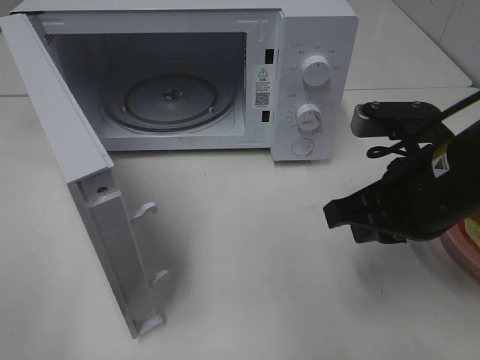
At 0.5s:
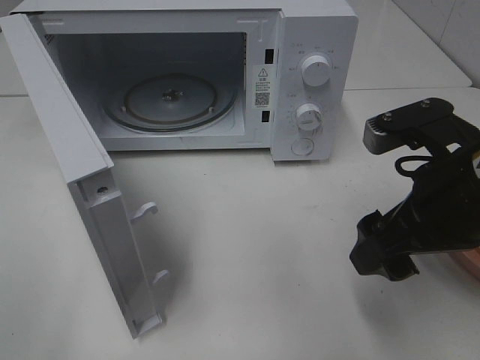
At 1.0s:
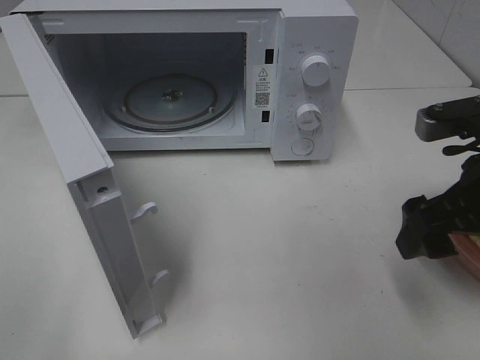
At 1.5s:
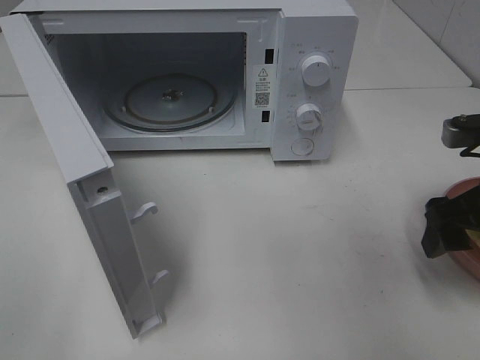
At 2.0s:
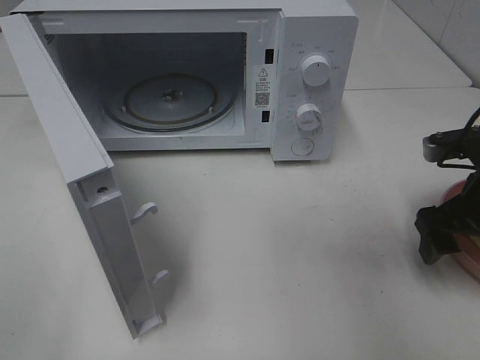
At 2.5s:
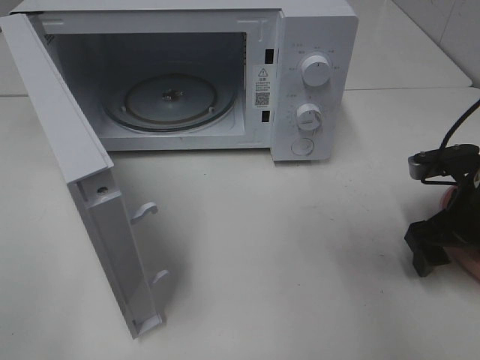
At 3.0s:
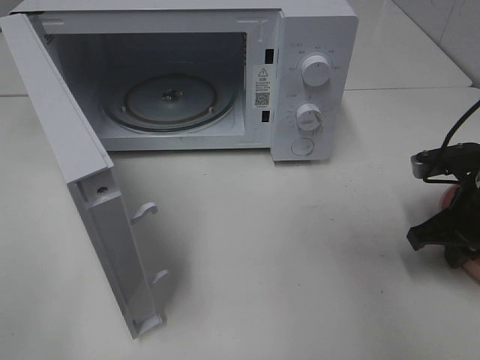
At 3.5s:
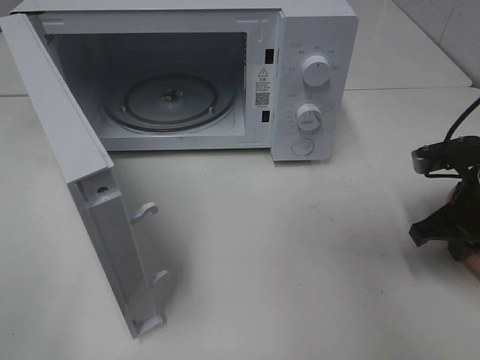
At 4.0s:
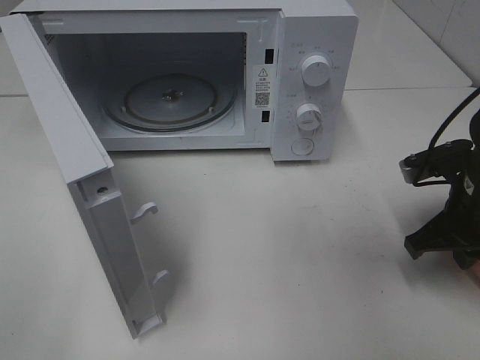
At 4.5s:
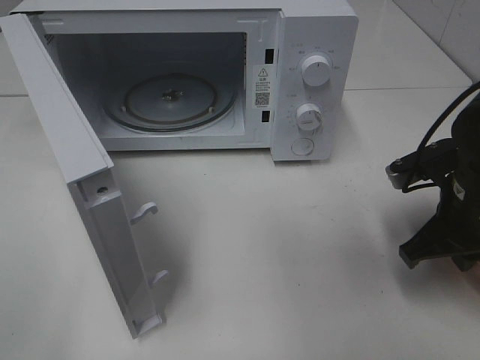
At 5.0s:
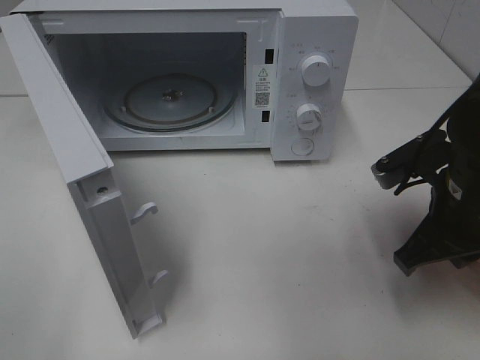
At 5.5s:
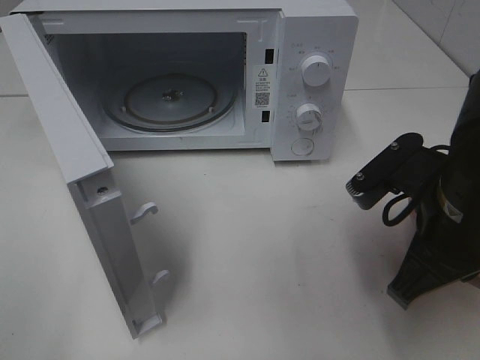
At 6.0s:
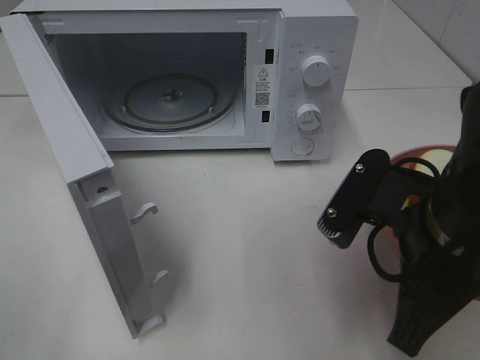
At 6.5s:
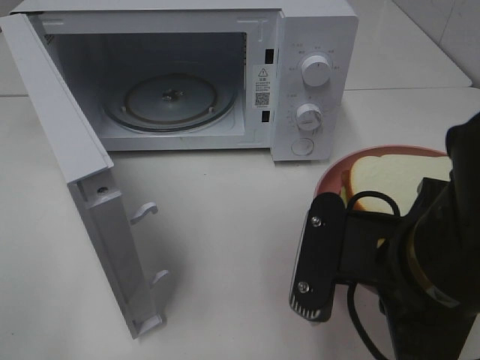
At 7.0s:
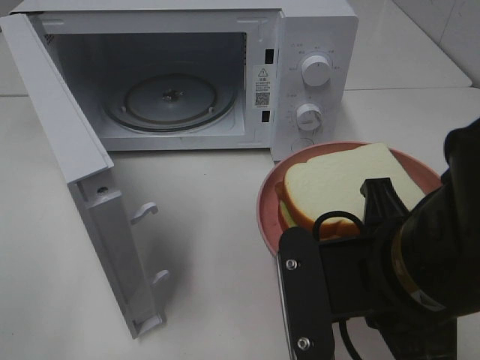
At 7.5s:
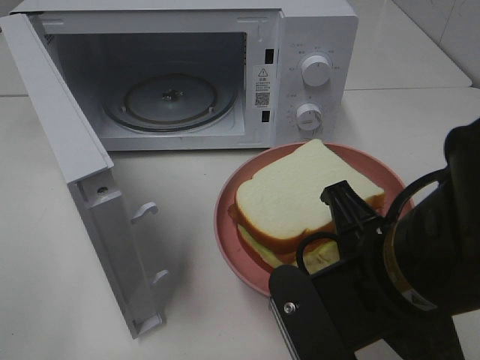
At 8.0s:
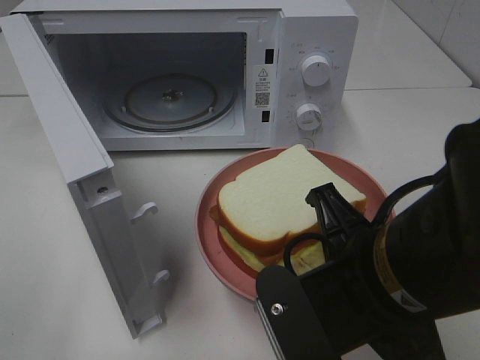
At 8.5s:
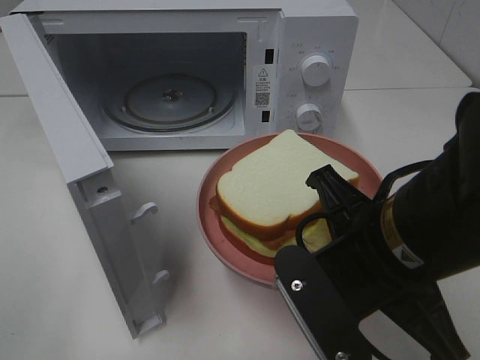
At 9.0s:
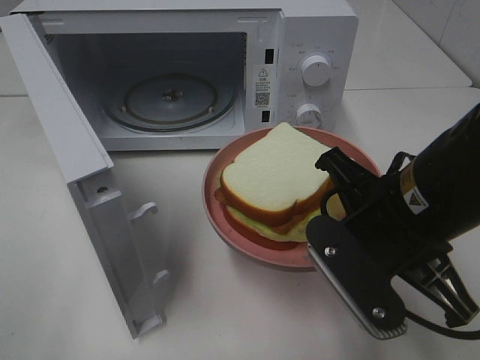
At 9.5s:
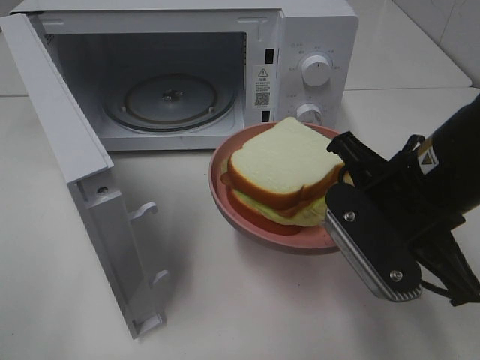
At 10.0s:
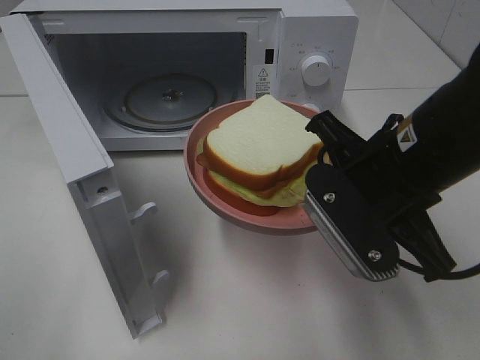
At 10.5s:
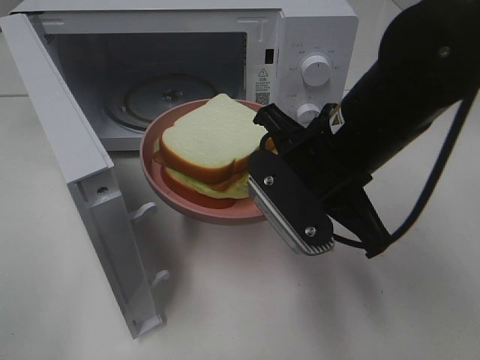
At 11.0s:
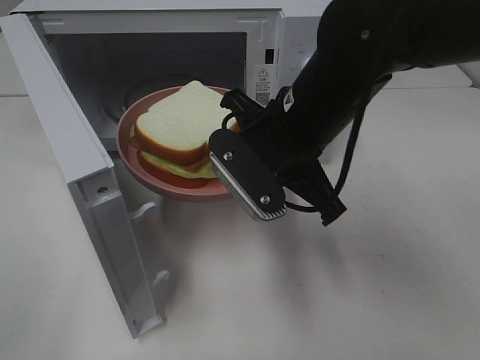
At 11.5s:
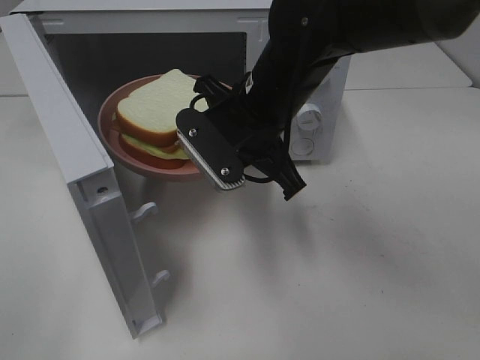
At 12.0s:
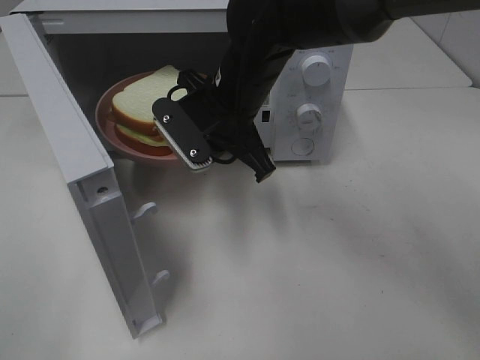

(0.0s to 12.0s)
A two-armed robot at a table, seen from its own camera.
Task of the whole recording: Heat Sandwich.
Step, 0.0s - 3.0s: Right hand: grab the plate with the sandwich.
0.0s - 2.0s: The right gripper travels to the right by about 10 cm, and opens up.
2.0s - 4.0s: The right gripper closes its fingers.
4.0s - 6.0s: The right gripper travels to the left, backward and upward by about 15 cm.
6.0s - 8.0s: The right gripper moves about 5 cm.
8.0s - 10.0s: The right gripper is displaced forward by about 10 cm.
10.0s - 12.0s: The right gripper moves forward and to the left, approximately 20 cm.

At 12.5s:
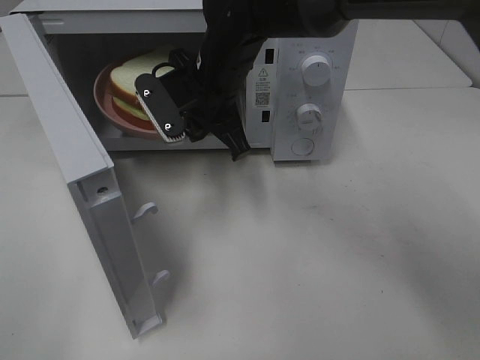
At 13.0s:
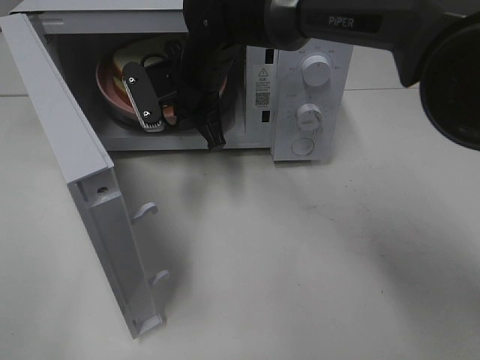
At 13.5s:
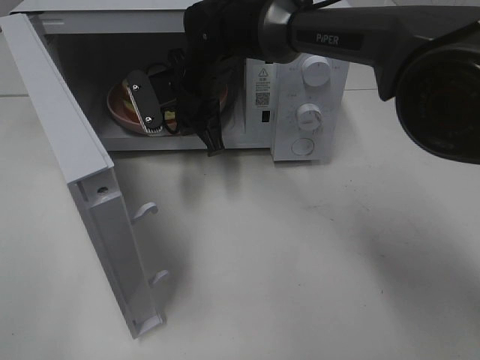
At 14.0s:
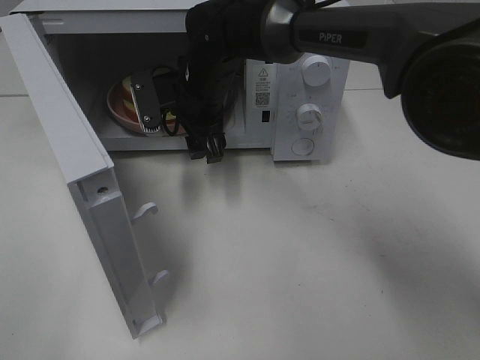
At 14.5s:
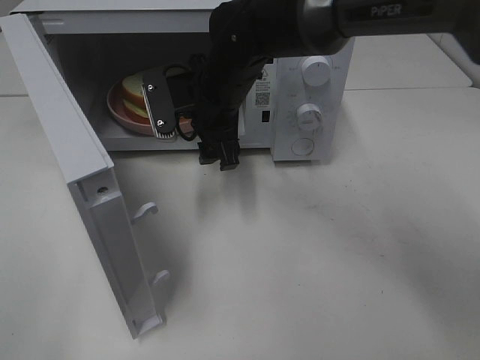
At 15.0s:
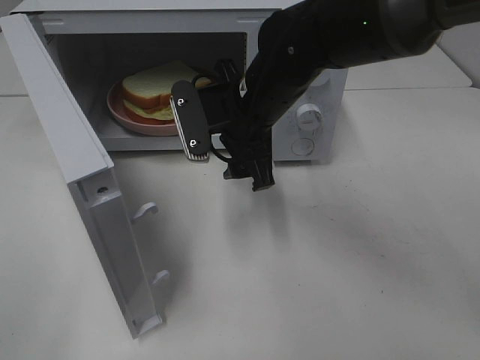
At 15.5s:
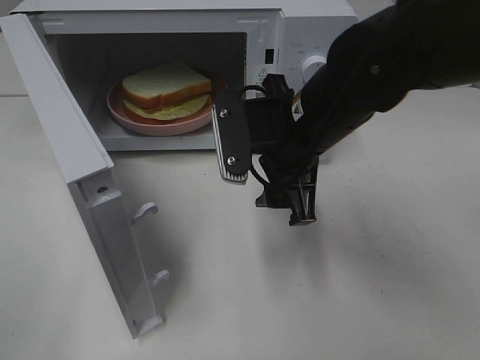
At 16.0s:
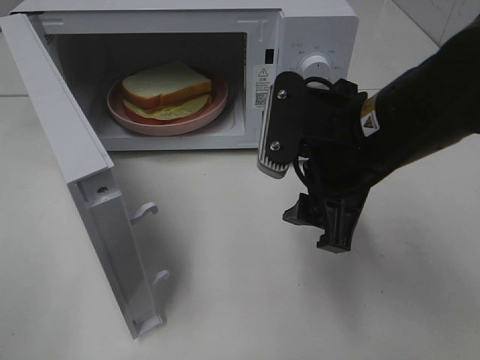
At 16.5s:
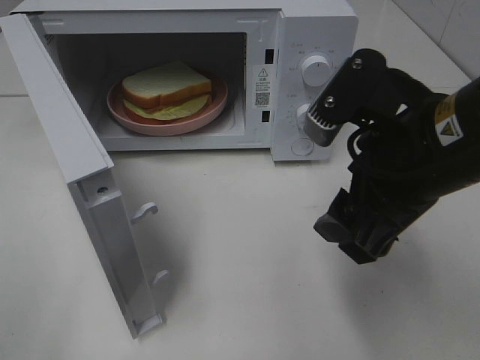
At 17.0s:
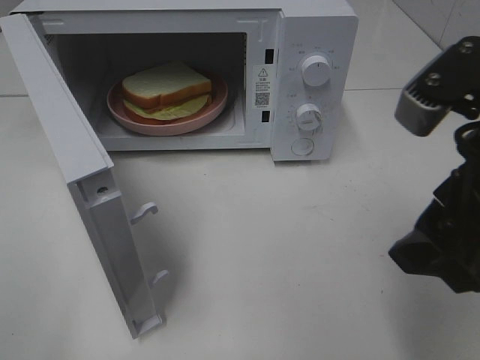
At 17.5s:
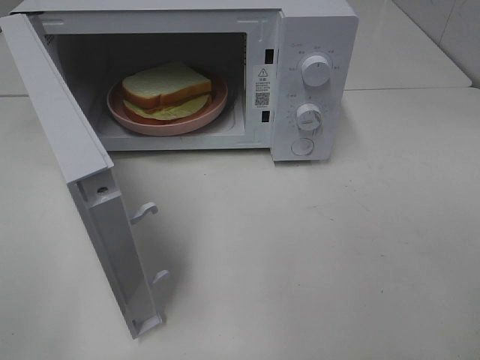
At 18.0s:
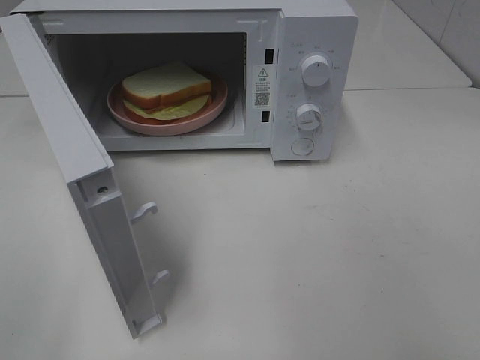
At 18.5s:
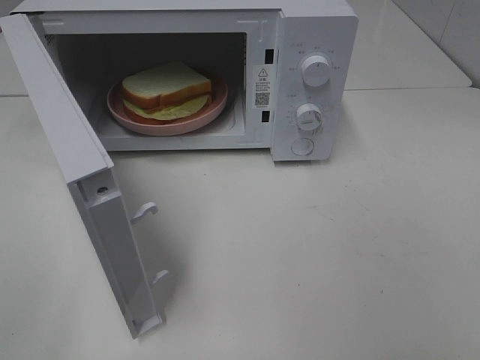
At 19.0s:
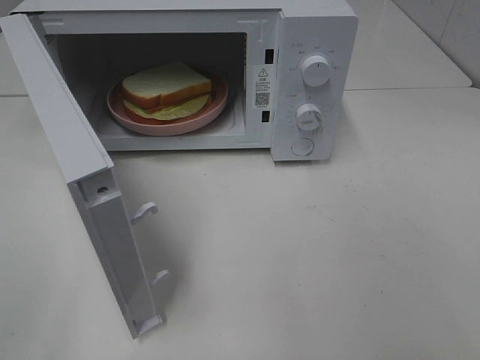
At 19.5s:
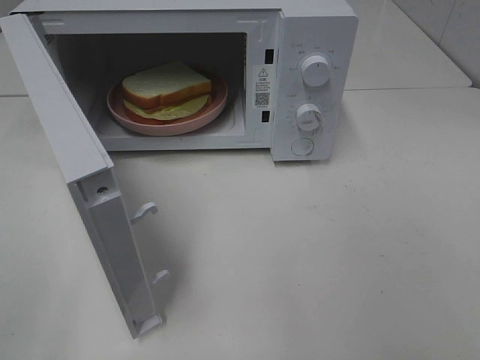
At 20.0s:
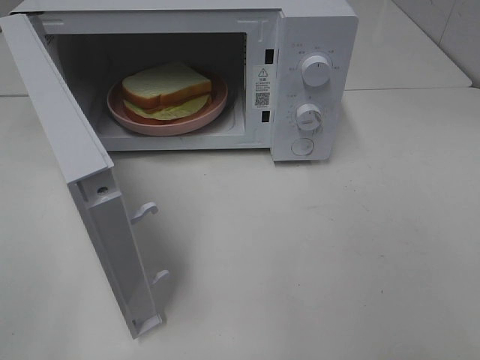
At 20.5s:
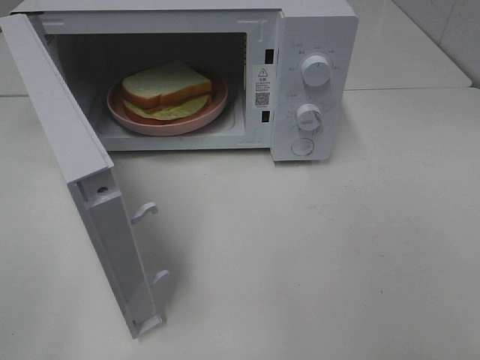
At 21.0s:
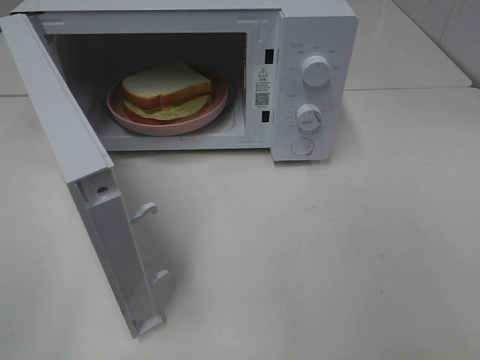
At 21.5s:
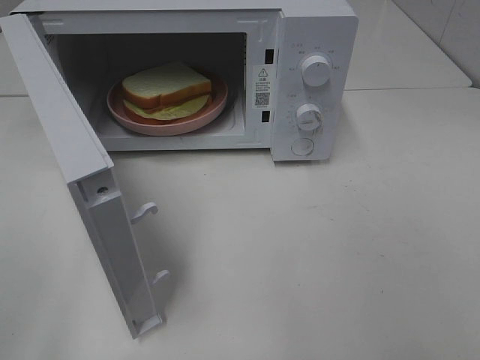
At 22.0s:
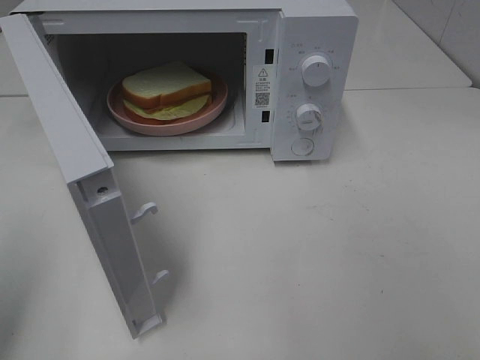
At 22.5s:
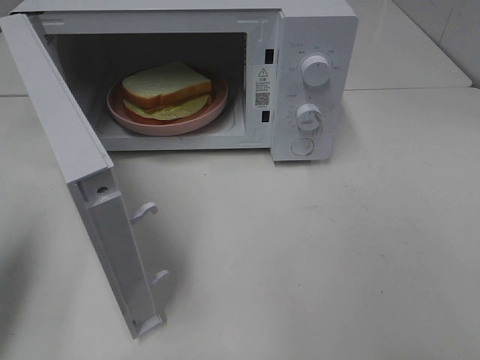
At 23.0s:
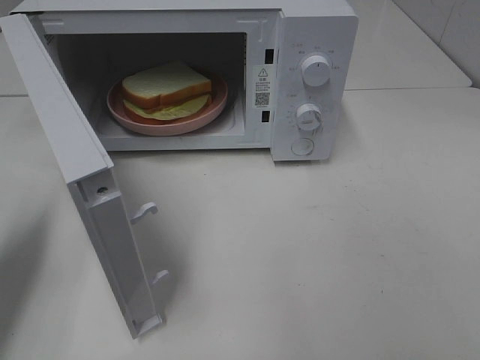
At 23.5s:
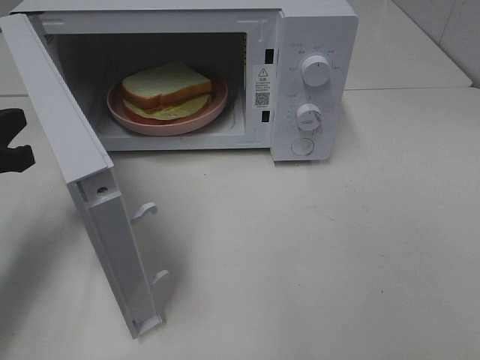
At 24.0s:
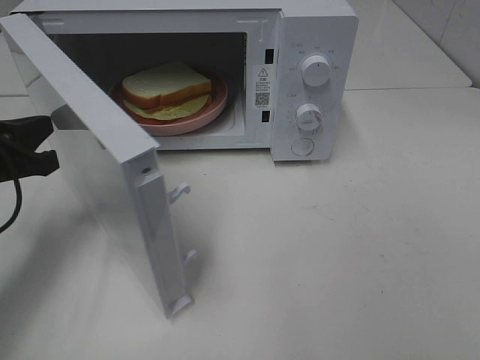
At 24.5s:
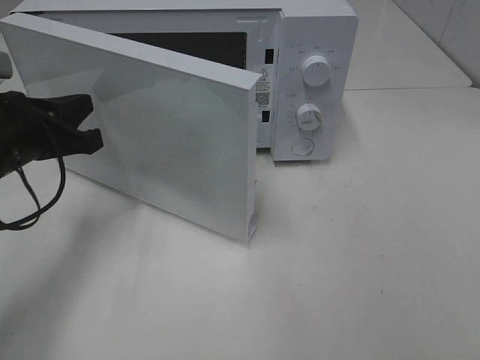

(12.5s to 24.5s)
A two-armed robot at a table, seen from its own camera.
Task of the whole recording: Heat Sandwich.
12.5s - 14.5s: The right gripper opens its fingers.
14.5s - 16.5s: The right gripper moves backward and to the right, some 25 cm.
16.5s - 18.5s: The right gripper moves backward and to the right, about 25 cm.
20.5s - 22.5s: The left gripper shifts approximately 15 cm forward, and closes.
22.5s - 24.5s: The left gripper shifts approximately 15 cm forward, to the right and downward.

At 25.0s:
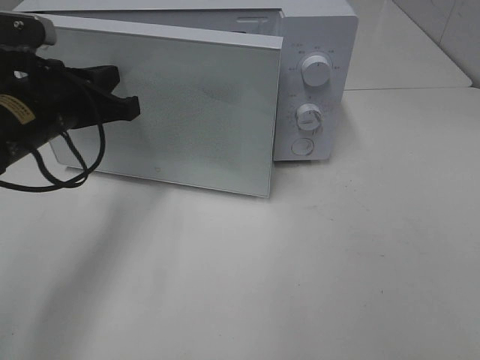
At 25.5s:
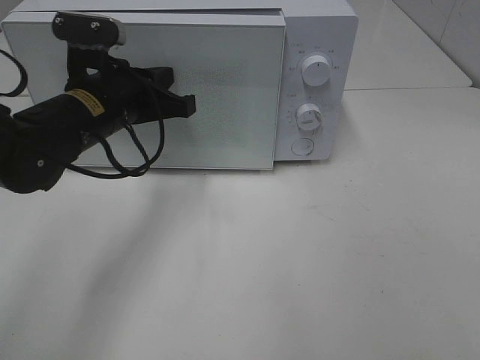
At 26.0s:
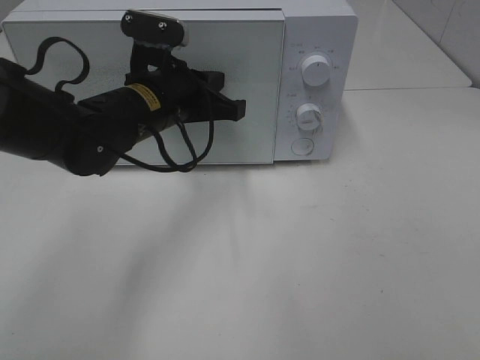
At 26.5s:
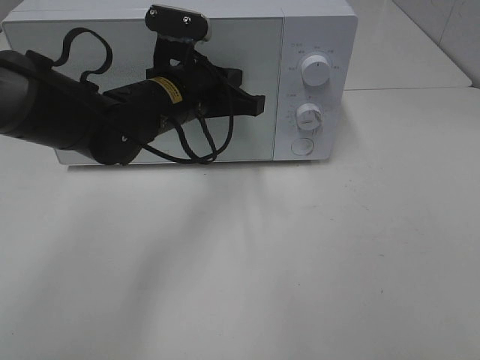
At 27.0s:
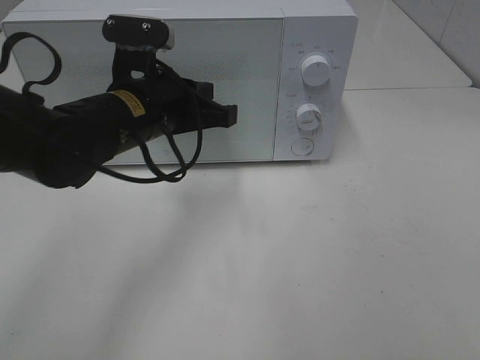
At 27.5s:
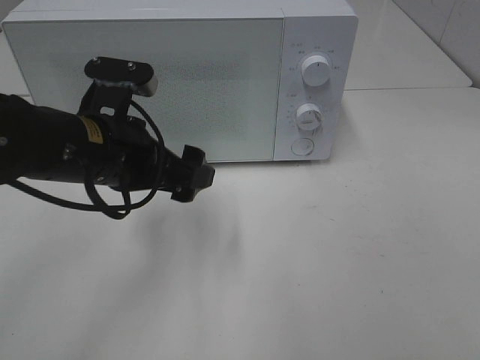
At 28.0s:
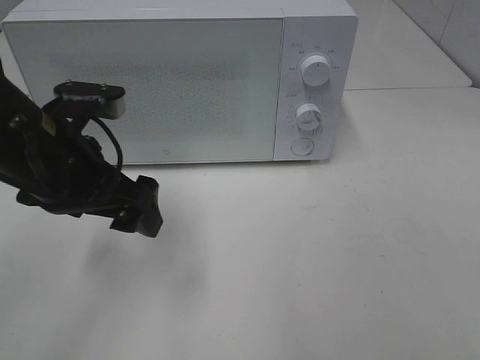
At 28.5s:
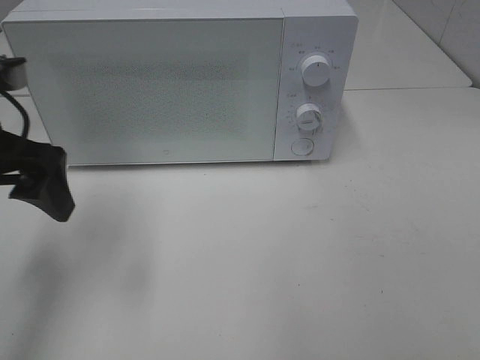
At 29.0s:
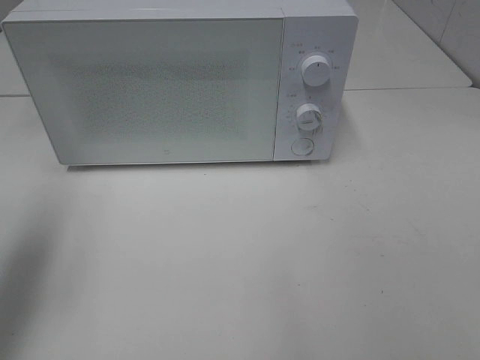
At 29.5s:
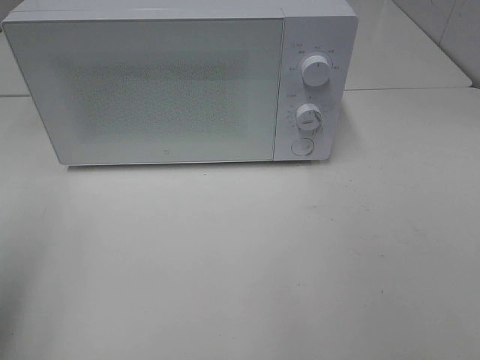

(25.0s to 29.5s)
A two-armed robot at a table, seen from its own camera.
Task of the whole recording: Heat Sandwich.
25.0s - 27.0s: The left gripper goes some 10 cm to the right.
27.0s - 29.5s: The left gripper shifts roughly 30 cm to the left, backward and upward, and opens its fingers.
